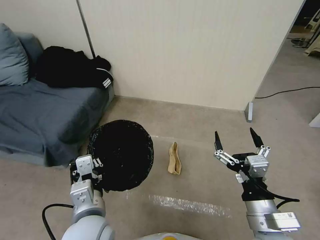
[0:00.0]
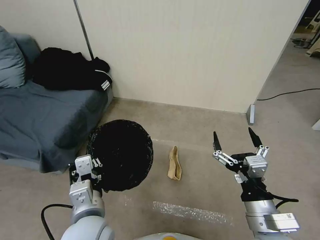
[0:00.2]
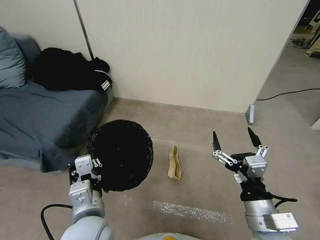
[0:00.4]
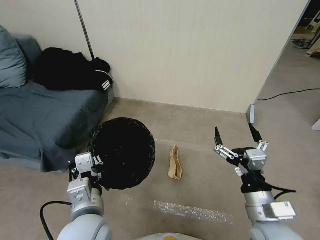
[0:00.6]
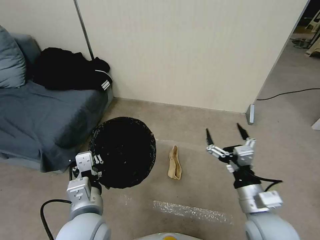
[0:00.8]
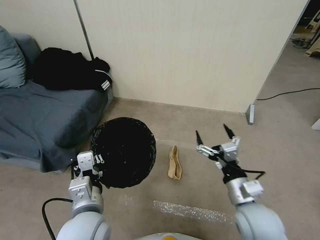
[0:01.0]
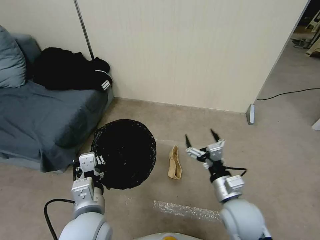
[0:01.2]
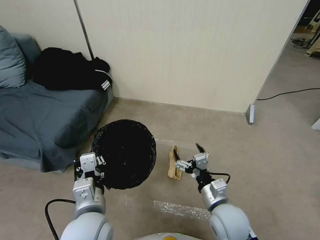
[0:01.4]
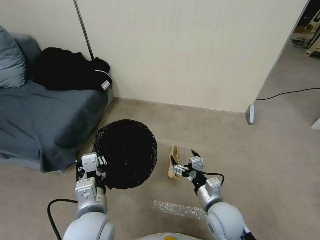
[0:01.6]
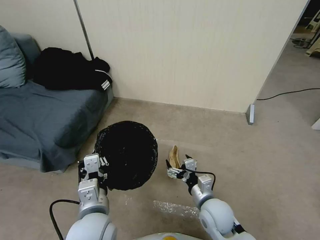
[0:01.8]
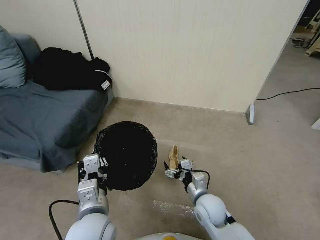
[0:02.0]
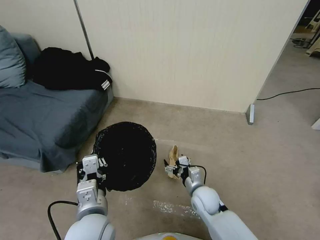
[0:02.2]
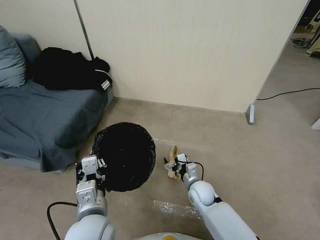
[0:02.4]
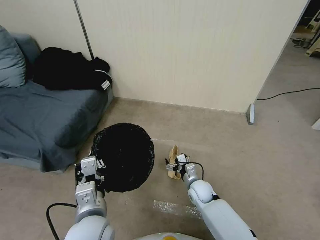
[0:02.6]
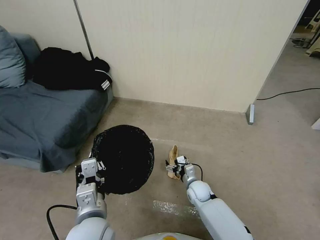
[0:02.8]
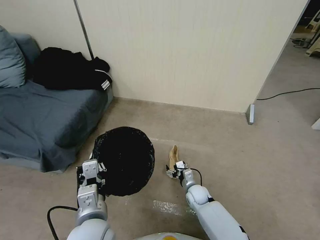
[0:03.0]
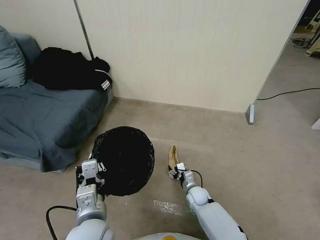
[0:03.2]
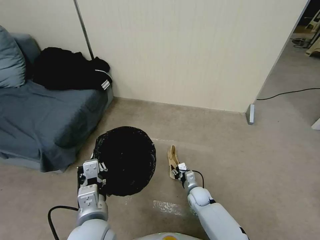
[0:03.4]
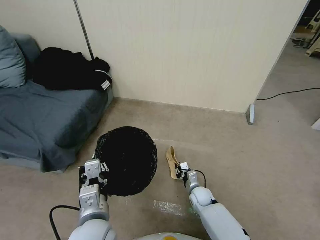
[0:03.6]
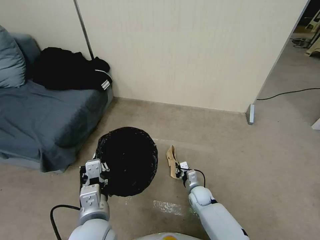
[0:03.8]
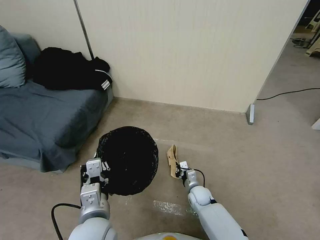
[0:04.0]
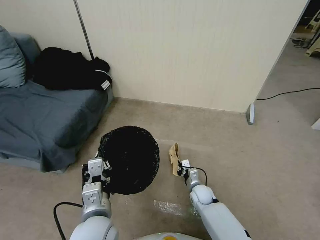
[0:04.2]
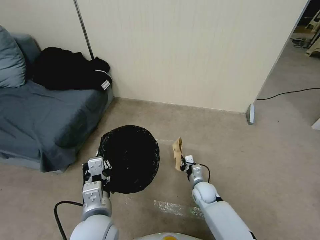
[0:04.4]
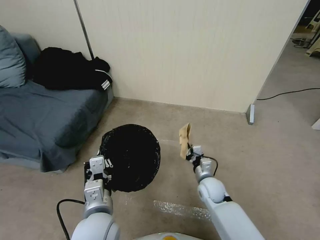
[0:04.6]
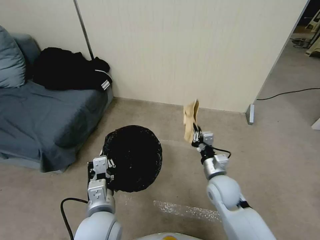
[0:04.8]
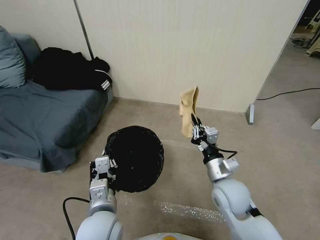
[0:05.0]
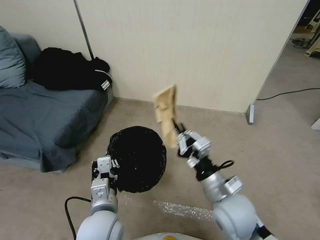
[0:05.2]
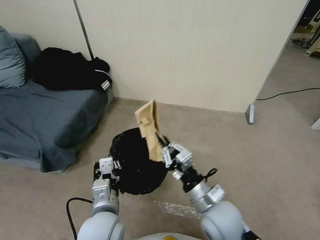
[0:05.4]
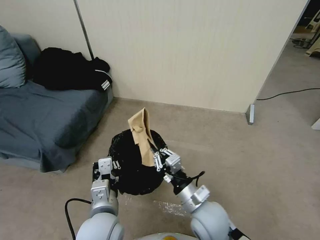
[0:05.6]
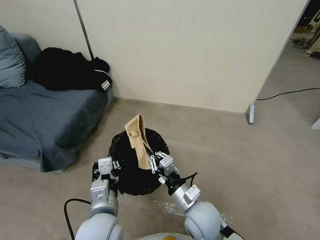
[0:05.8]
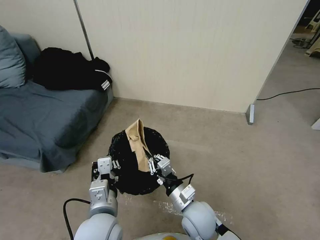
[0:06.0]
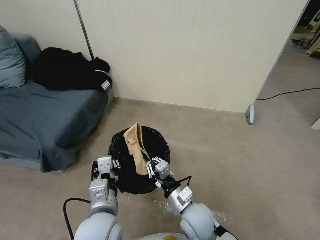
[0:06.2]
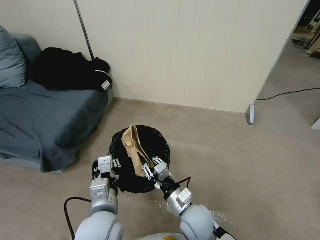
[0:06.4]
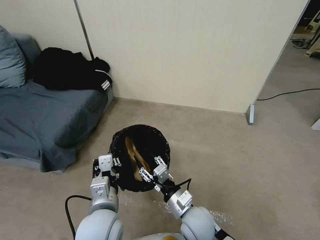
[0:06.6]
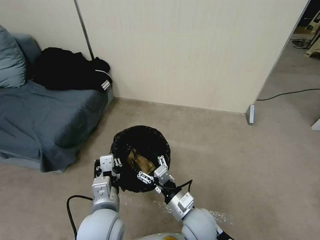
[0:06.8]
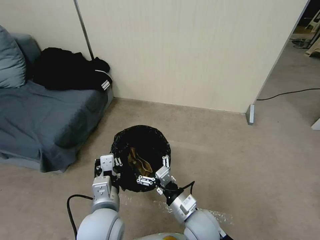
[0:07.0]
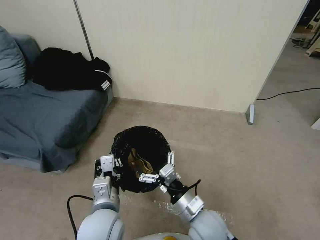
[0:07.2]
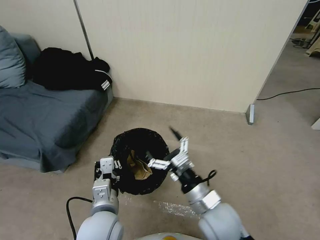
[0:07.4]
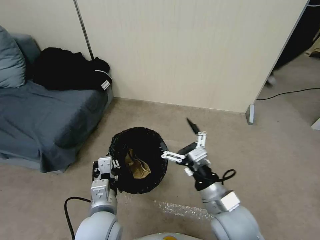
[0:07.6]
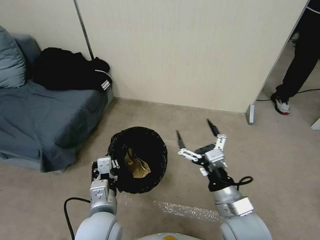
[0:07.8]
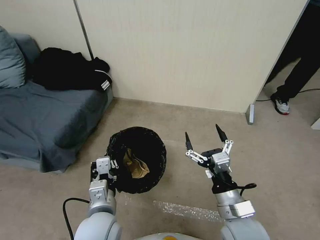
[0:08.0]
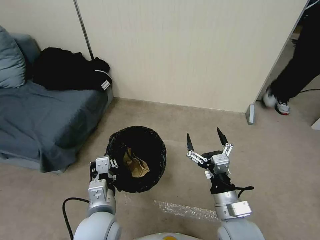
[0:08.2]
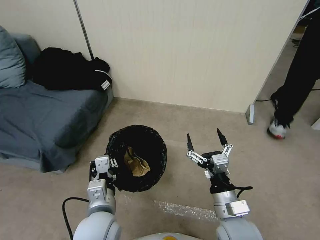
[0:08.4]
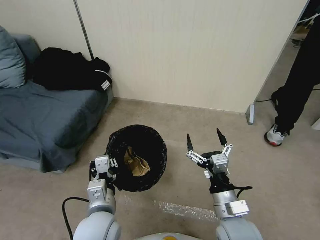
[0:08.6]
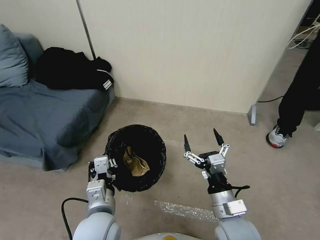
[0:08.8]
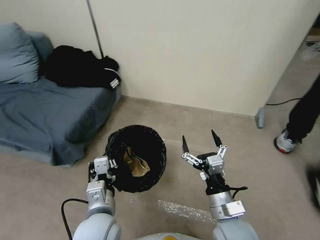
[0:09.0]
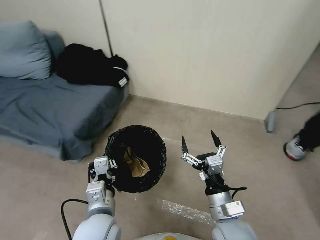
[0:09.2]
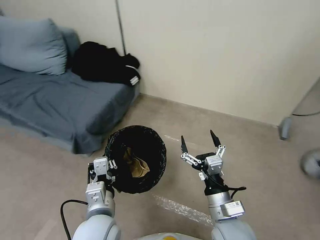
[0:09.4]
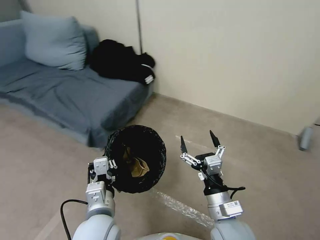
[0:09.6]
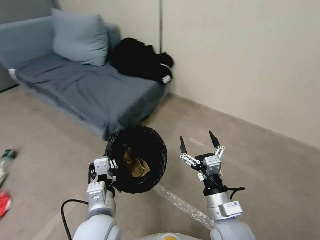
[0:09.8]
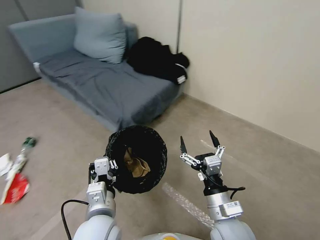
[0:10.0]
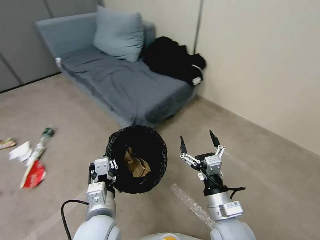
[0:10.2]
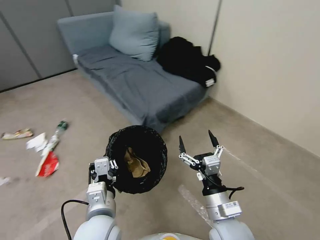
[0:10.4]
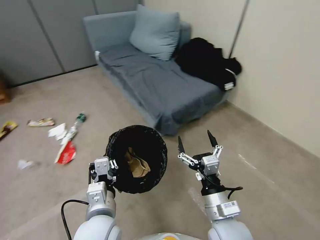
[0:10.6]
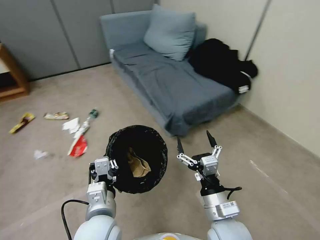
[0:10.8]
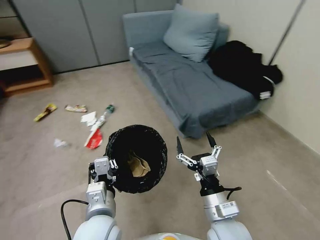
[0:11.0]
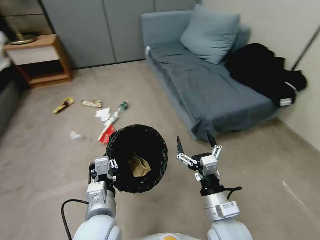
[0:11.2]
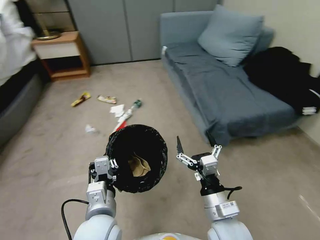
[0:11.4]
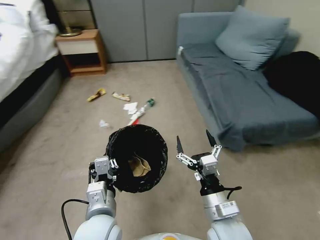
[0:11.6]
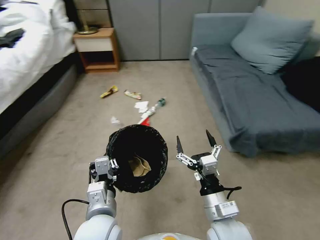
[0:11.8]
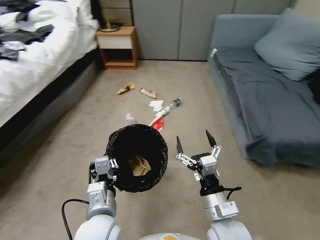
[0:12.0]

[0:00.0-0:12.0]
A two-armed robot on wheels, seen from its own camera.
Task of the whole recording: Pick up the trash bin, then pick up the garbage from the floor and place it into the trash bin.
0:00.0 to 0:01.6: The right gripper shifts roughly 15 cm downward, forward and to the left.
0:01.6 to 0:03.0: The right gripper is displaced downward and forward by approximately 25 cm.
0:03.0 to 0:04.4: The right gripper closes.
0:04.4 to 0:06.0: The right gripper heads upward, backward and to the left, covering approximately 20 cm.
0:06.0 to 0:07.6: The right gripper travels upward and to the right by some 10 cm, and opens.

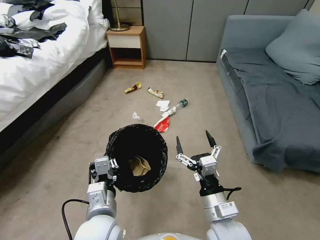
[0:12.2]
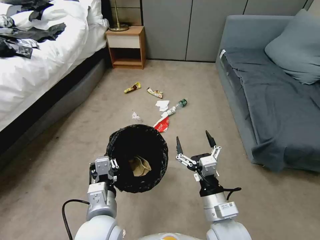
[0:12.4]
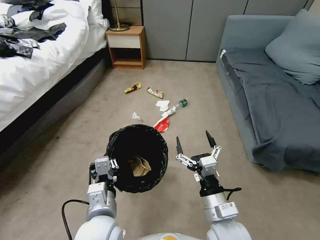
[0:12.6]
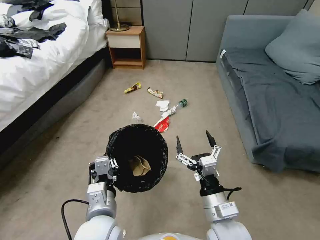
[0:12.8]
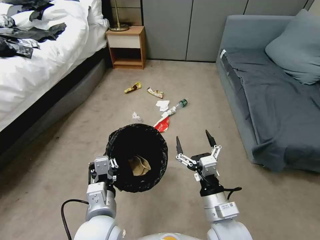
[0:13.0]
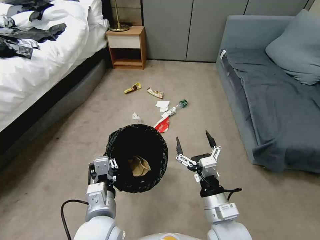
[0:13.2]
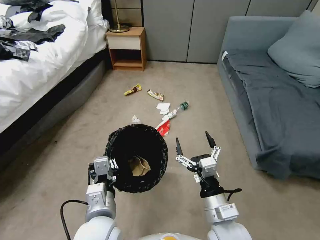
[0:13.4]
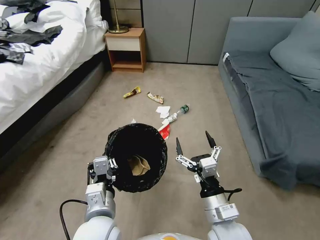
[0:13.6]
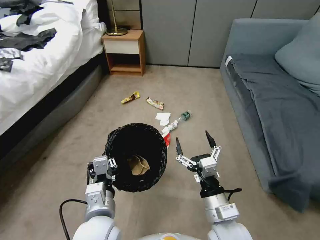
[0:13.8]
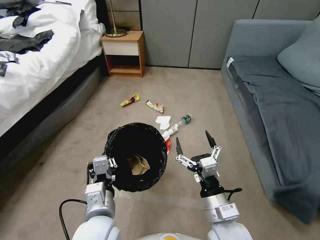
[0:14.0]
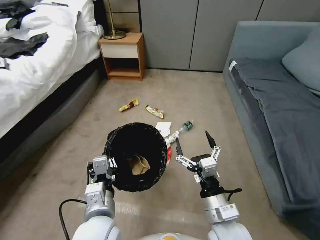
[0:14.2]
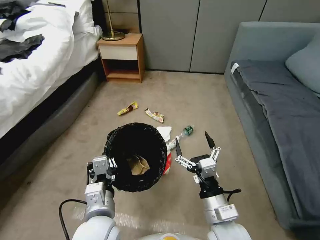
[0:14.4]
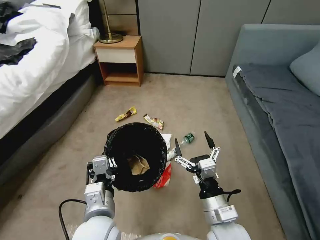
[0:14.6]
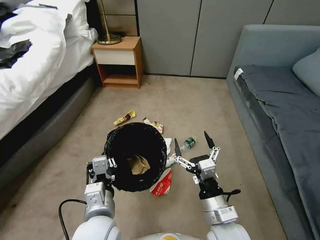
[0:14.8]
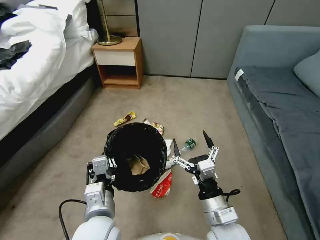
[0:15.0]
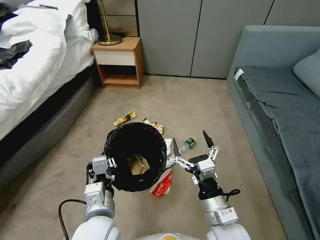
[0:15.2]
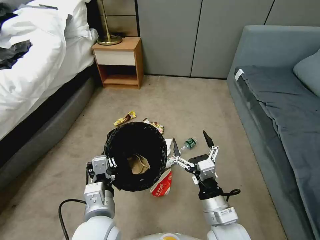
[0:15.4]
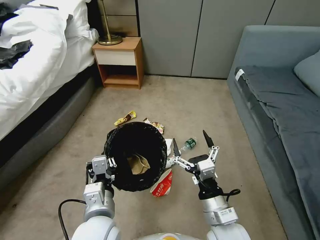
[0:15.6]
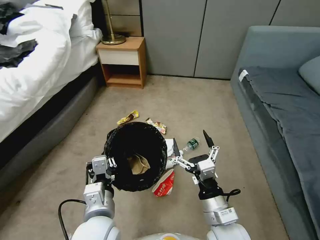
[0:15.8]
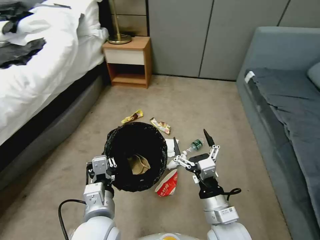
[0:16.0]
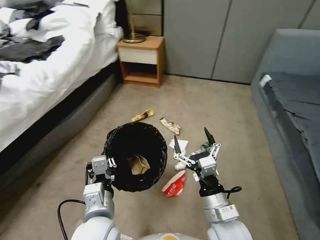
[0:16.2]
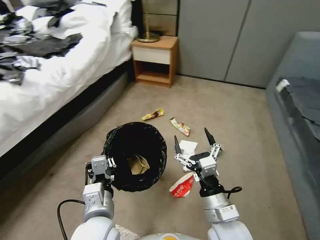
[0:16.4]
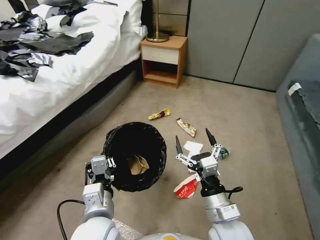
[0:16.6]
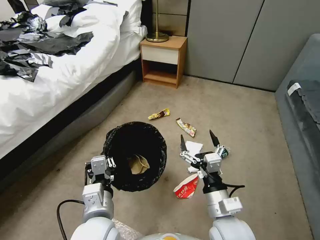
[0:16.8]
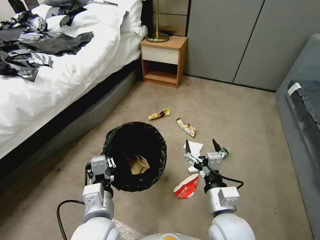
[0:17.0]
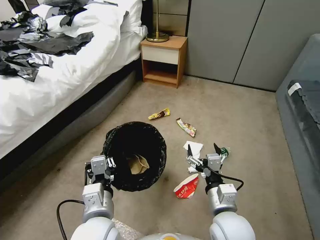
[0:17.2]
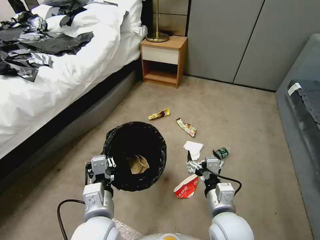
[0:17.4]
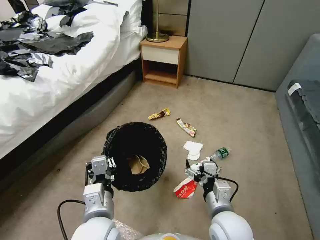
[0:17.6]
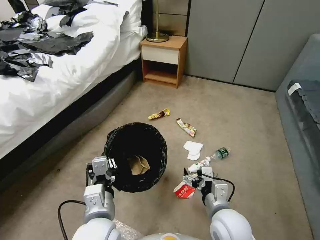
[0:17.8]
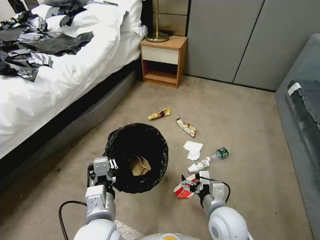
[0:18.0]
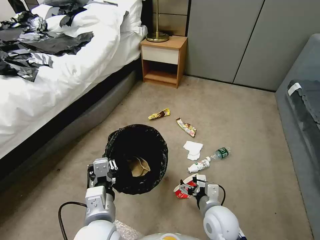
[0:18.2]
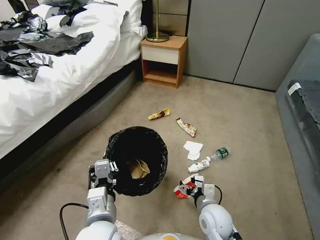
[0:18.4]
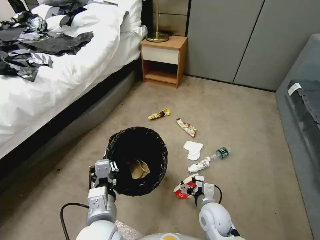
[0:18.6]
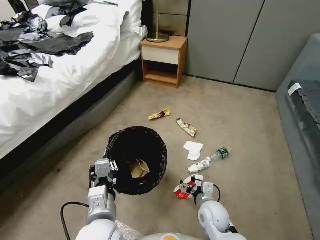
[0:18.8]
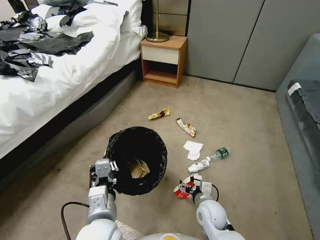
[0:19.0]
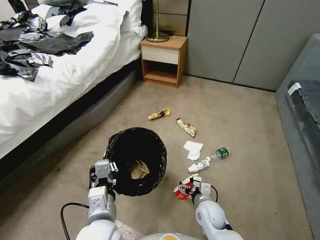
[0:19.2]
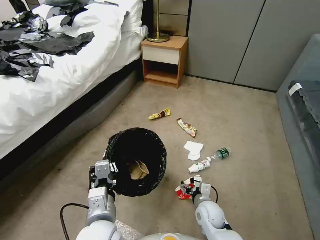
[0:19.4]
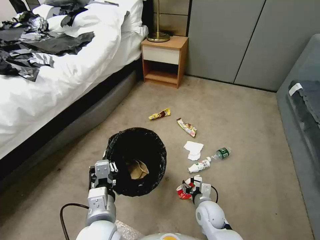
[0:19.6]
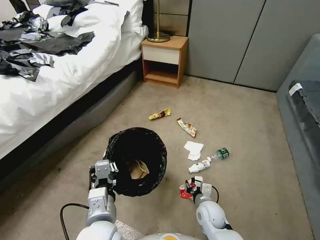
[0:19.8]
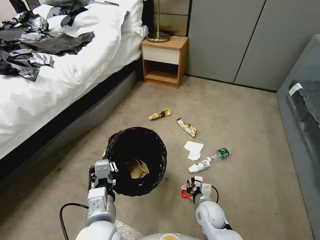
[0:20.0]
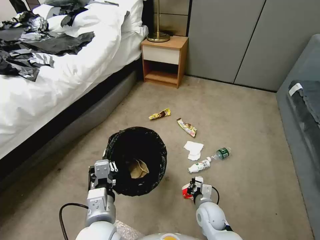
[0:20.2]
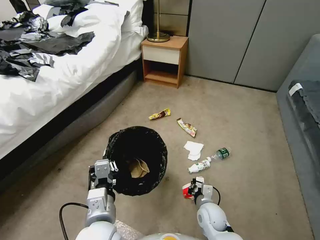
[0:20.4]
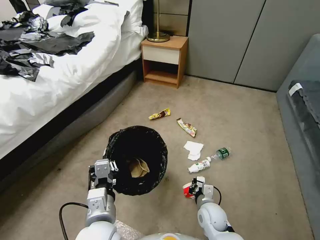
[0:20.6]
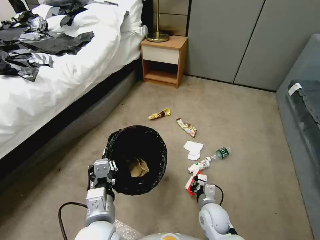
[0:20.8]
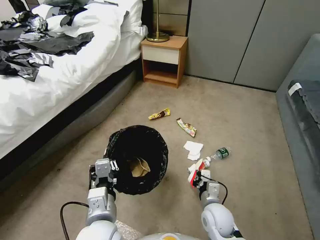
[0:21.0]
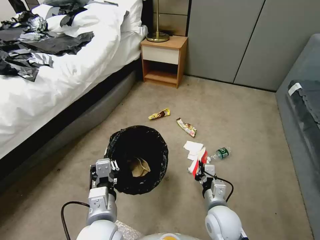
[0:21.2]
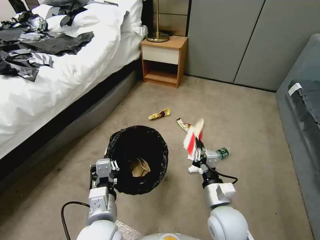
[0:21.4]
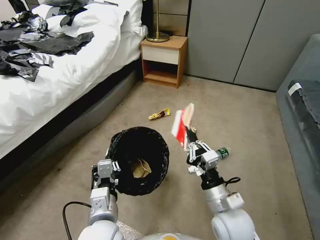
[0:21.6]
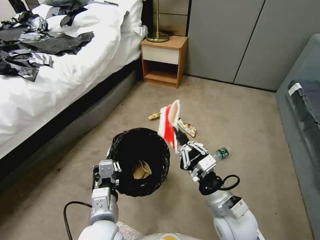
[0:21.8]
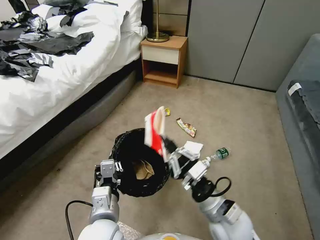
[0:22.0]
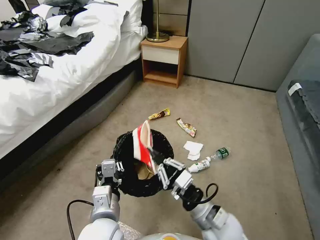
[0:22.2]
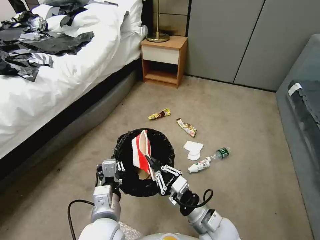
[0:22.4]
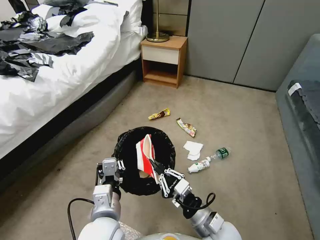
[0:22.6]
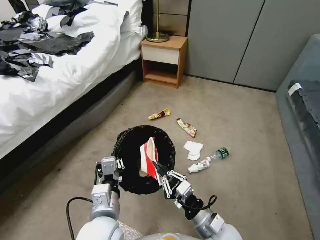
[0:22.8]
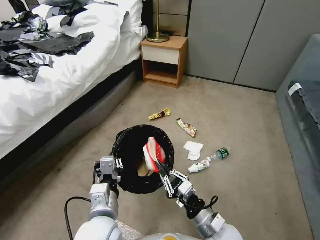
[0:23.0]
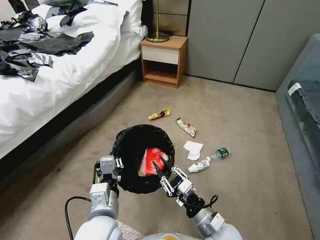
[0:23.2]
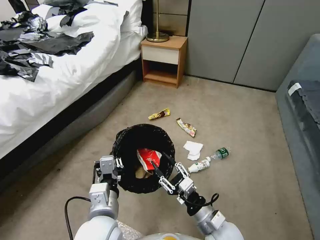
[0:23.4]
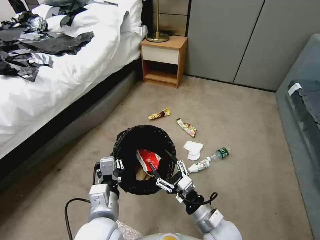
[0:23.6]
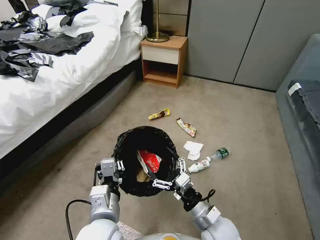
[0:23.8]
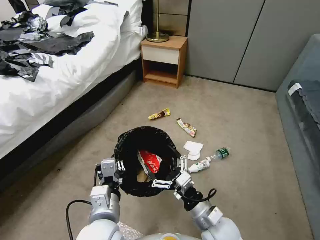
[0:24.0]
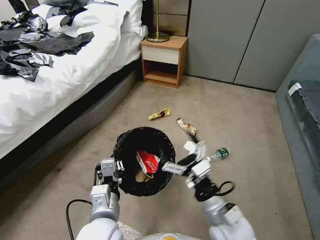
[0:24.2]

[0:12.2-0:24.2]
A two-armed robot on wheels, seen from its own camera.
Task of the whole recording: Pick up the trash bin, then pick up the garbage from the floor and place it into the trash bin.
0:16.6 to 0:18.2: The right gripper goes roughly 10 cm downward.
0:18.2 to 0:19.8: The right gripper is displaced downward by some 10 cm, and closes up.
0:19.8 to 0:21.2: The right gripper is displaced upward by about 10 cm, and closes up.
0:21.2 to 0:22.6: The right gripper goes upward and returns, some 10 cm each way.
0:22.6 to 0:24.2: The right gripper heads upward, covering roughly 5 cm, and opens.
